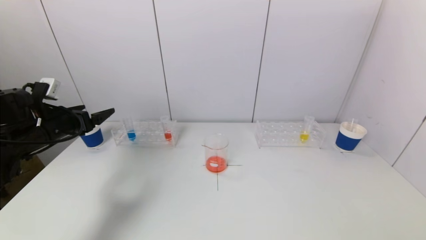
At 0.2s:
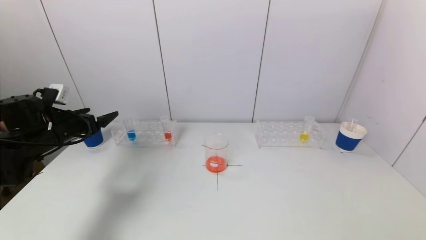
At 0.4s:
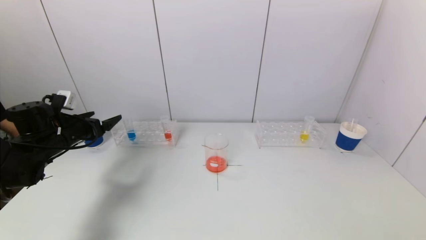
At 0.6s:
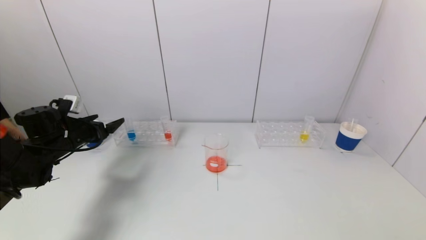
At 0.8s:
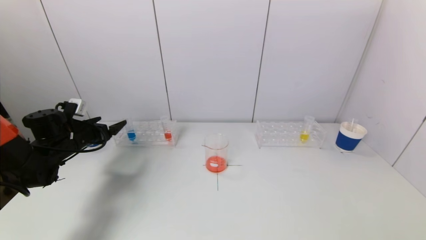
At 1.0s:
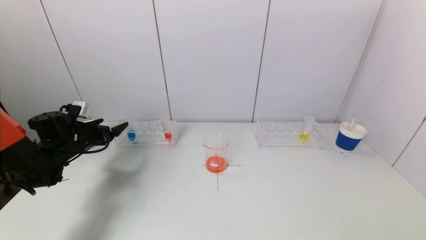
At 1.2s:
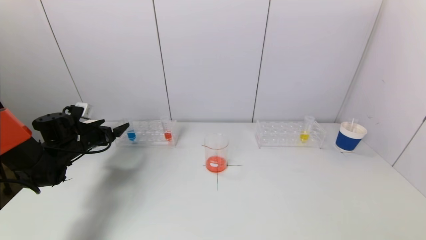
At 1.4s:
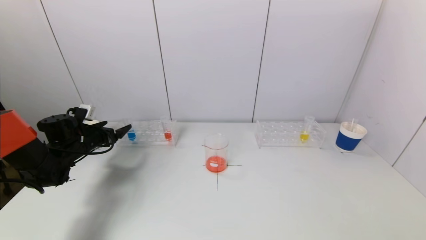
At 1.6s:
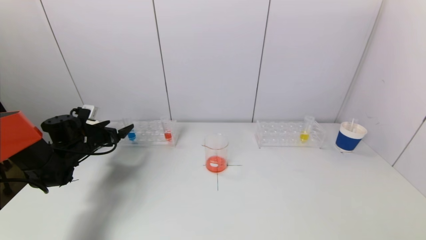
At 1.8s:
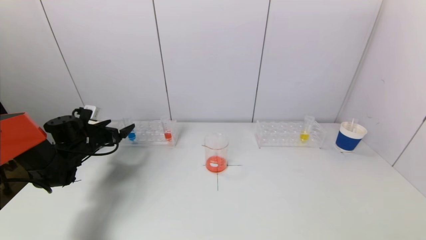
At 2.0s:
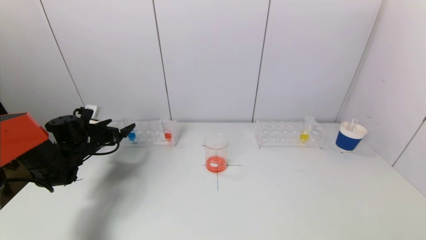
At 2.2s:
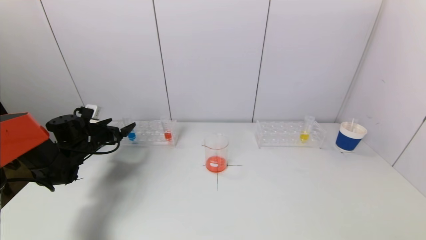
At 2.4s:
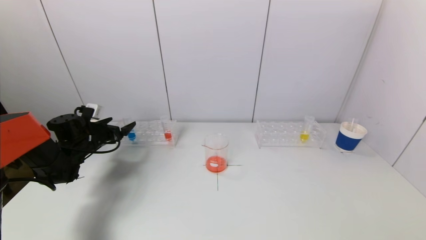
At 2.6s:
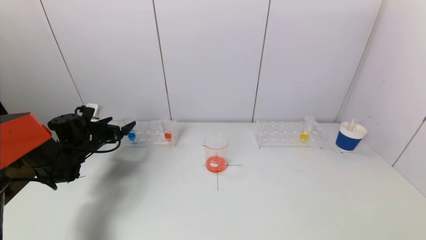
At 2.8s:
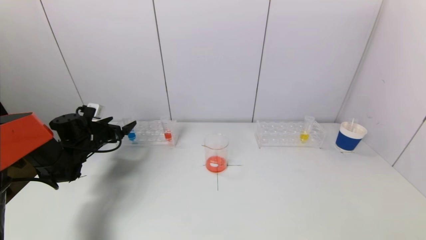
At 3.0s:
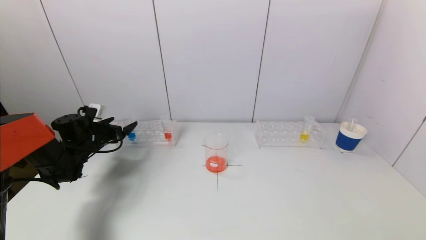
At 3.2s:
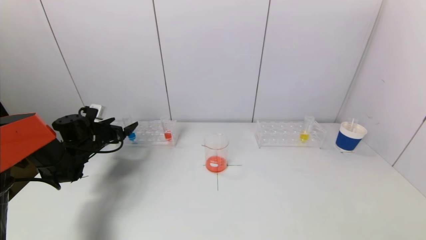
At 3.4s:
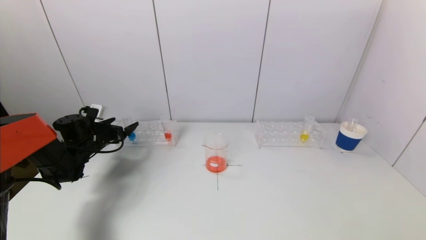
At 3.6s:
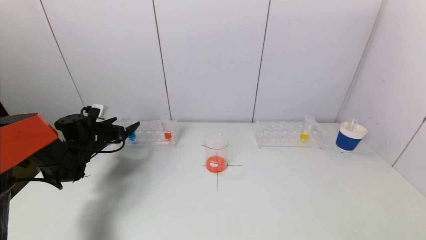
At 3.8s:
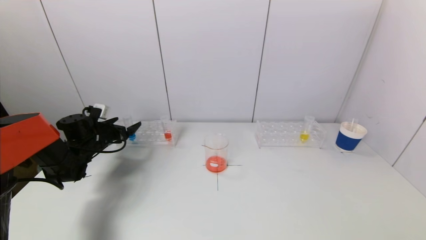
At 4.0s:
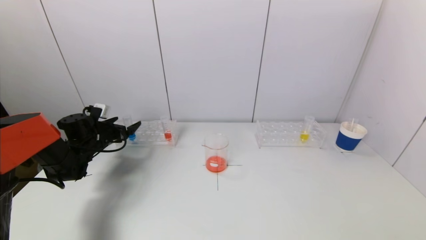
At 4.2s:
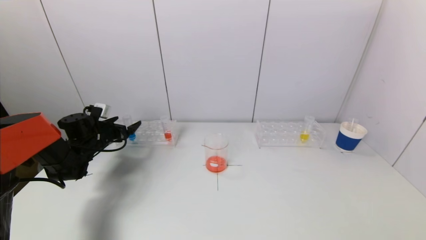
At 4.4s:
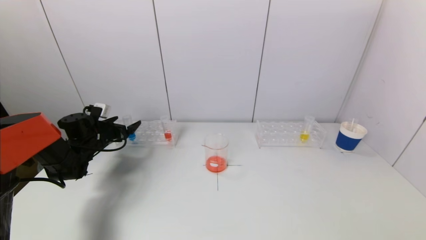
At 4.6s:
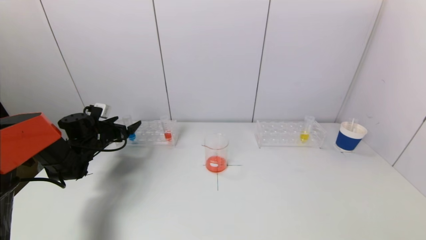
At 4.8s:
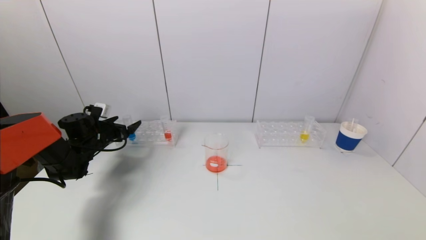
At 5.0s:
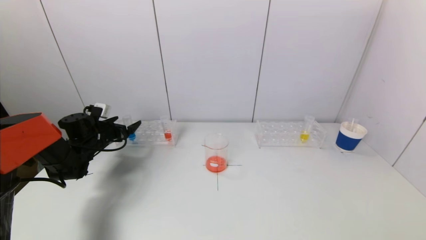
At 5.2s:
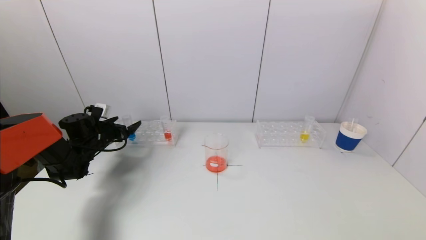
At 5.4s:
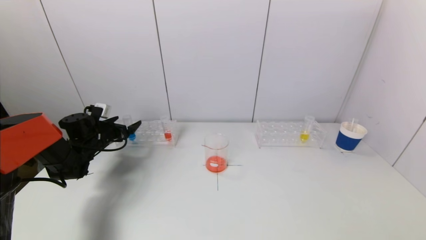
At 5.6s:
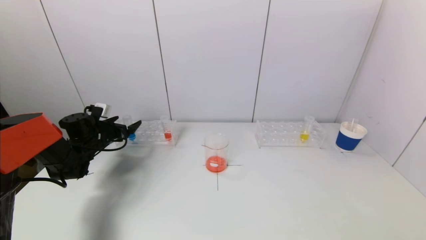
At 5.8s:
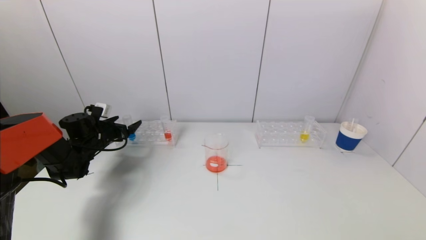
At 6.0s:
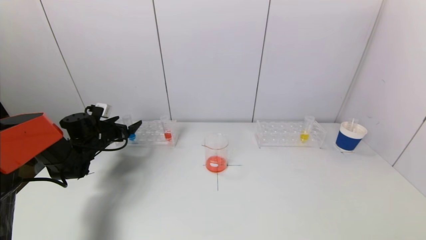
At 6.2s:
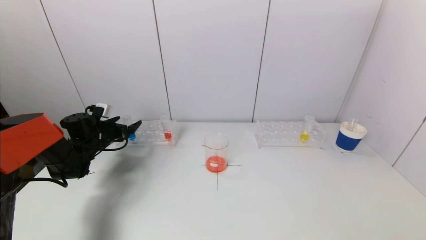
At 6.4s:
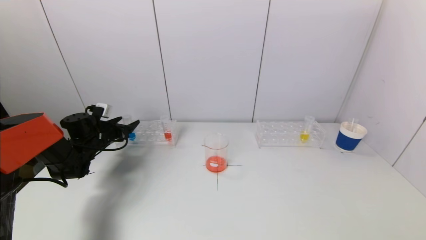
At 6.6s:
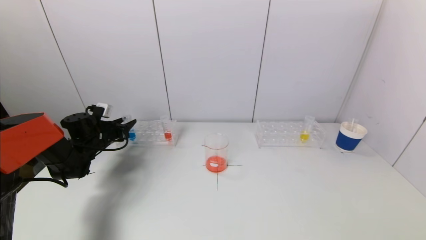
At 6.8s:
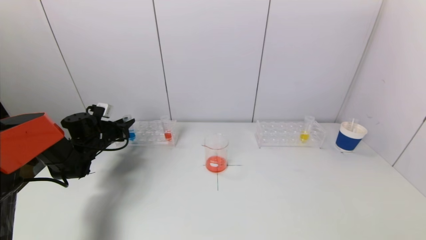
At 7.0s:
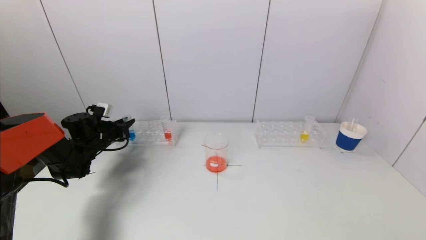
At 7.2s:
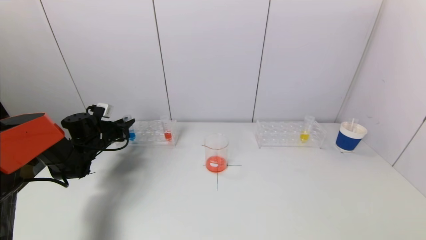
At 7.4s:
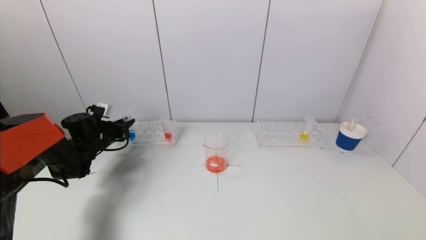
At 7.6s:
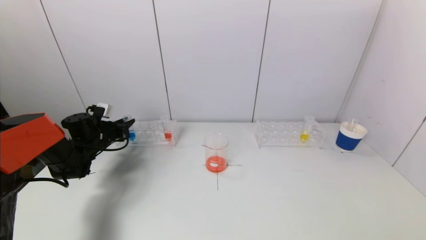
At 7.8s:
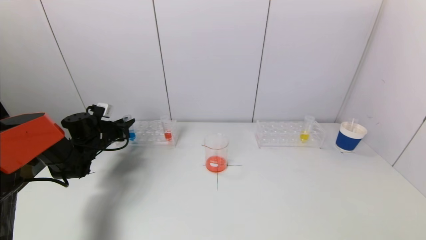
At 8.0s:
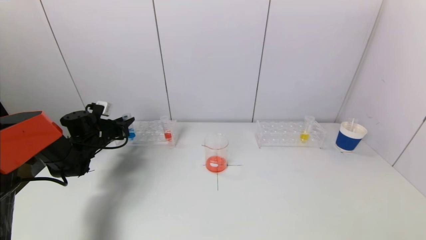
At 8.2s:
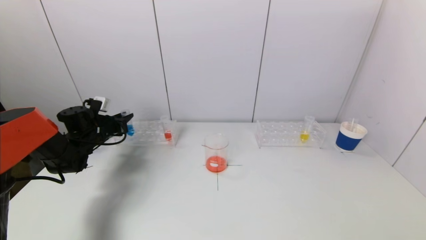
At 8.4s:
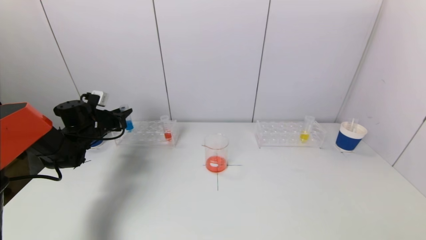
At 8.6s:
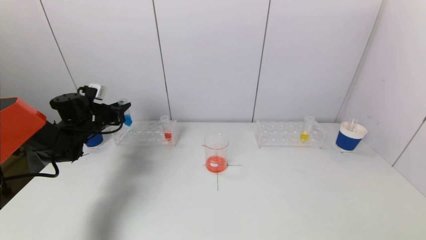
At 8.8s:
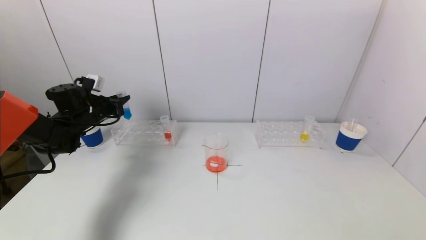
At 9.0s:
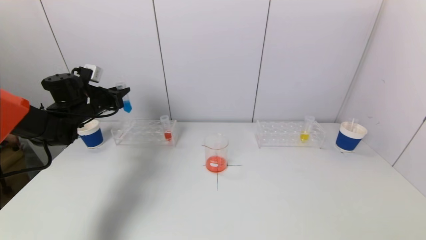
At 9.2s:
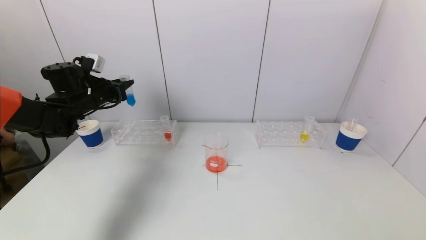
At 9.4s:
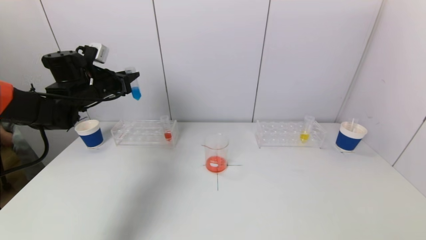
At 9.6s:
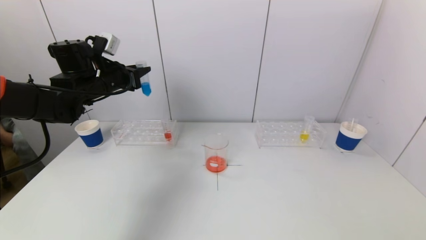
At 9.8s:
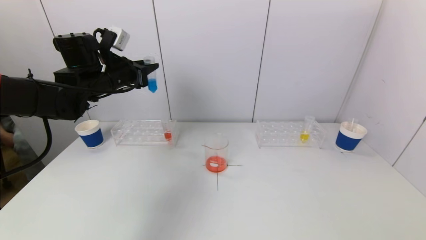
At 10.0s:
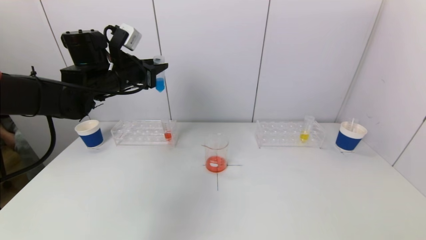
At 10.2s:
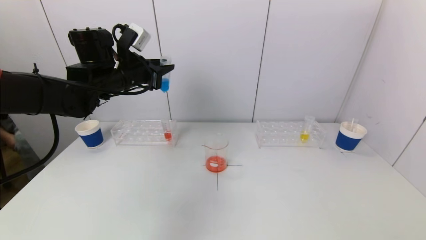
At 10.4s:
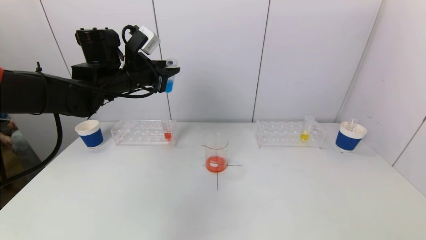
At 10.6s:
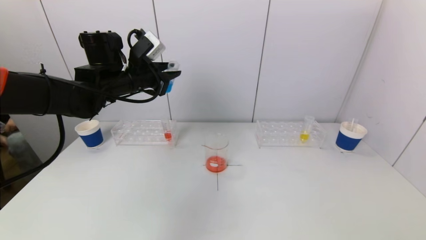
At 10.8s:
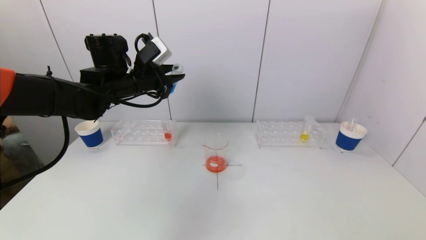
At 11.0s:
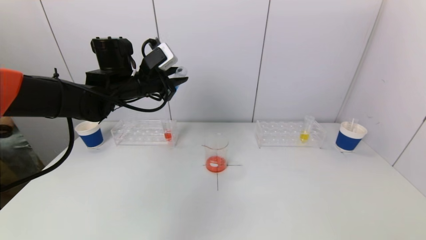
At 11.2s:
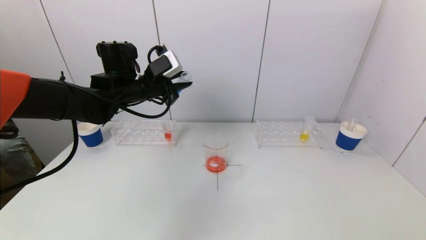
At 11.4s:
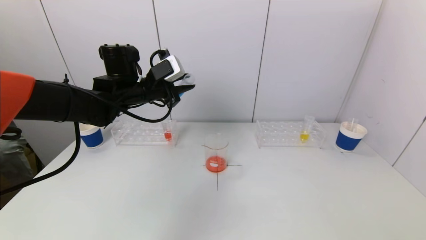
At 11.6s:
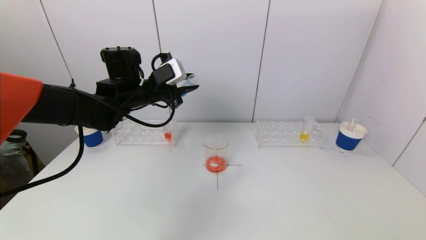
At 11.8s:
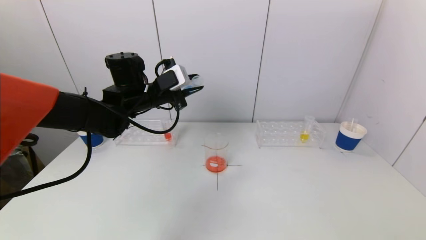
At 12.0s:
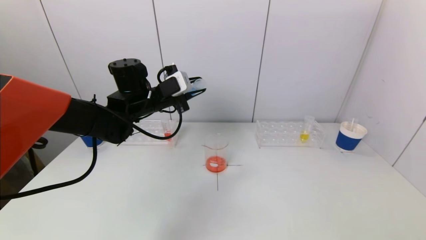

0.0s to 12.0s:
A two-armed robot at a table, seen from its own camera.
Task of the whole recording: pick up a test tube with pigment on left test tube rack and a test tube with pigment on right test tube rack by grippers and pour them into the beaker.
Step, 0.0s to 7.4s: Grasp the blue reagent with the left gripper.
0.0s to 1.6s: The left gripper moves downward and forward, about 15 cm.
1.6s to 3.0s: The grippers stay close to where they were, moving slightly.
3.0s to 4.4s: Both grippers stay about where they are.
4.4s to 6.0s: Neither gripper changes place.
6.0s to 7.6s: The left gripper closes.
7.6s to 9.0s: The left gripper shifts about 10 cm upward.
9.0s to 10.4s: The left gripper shifts about 15 cm to the right and upward.
10.4s to 12.0s: The left gripper heads downward, covering some 5 cm.

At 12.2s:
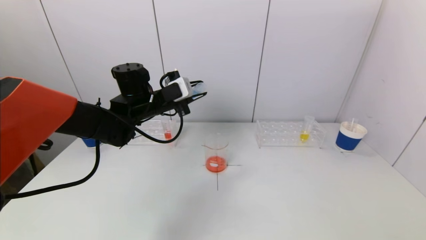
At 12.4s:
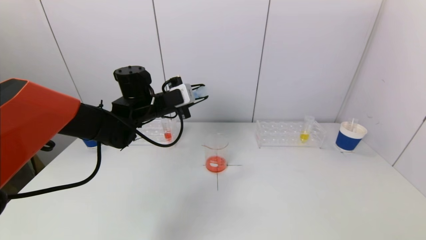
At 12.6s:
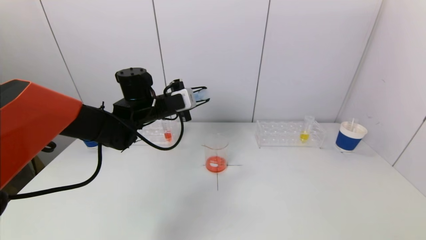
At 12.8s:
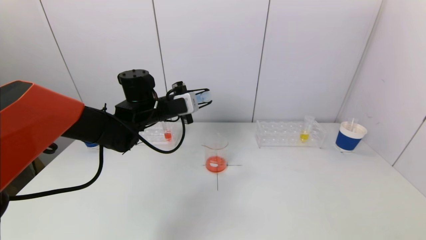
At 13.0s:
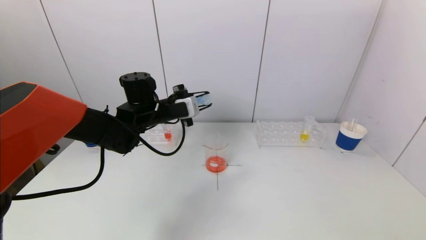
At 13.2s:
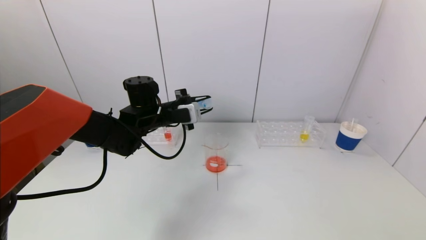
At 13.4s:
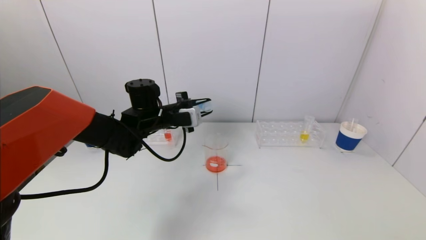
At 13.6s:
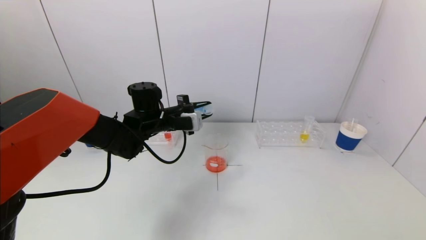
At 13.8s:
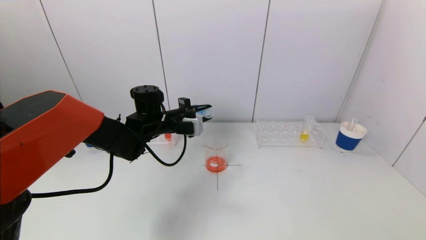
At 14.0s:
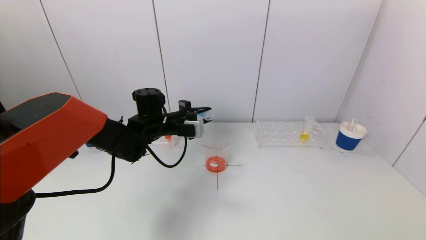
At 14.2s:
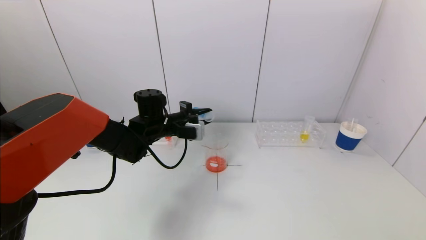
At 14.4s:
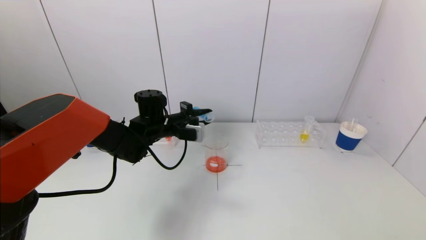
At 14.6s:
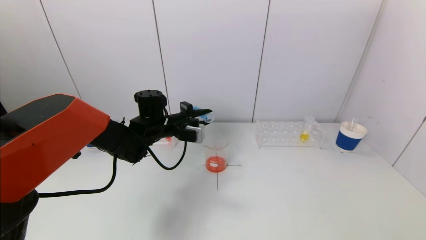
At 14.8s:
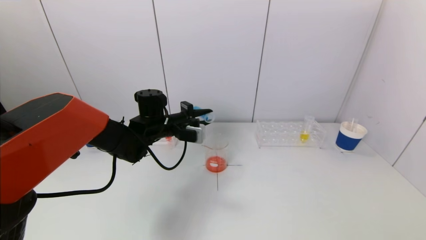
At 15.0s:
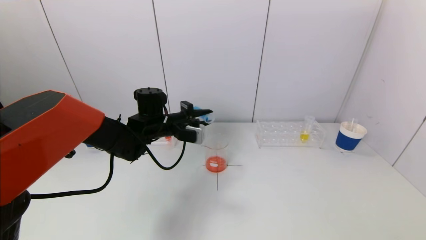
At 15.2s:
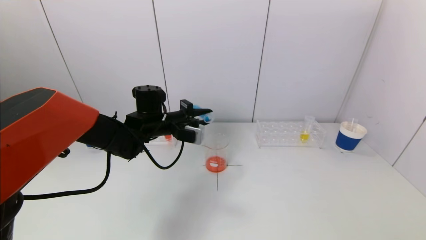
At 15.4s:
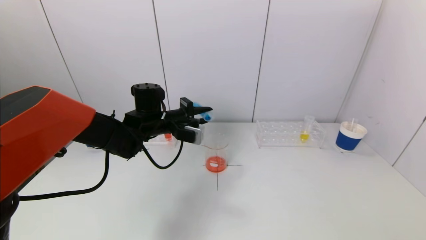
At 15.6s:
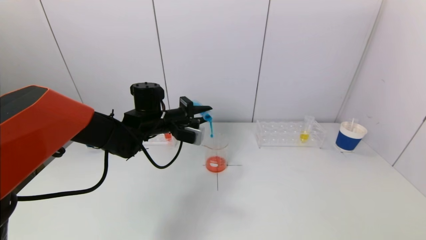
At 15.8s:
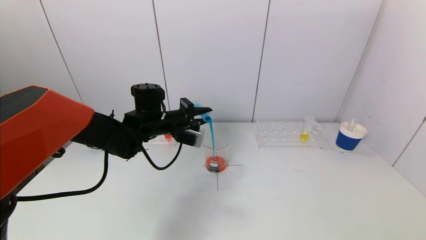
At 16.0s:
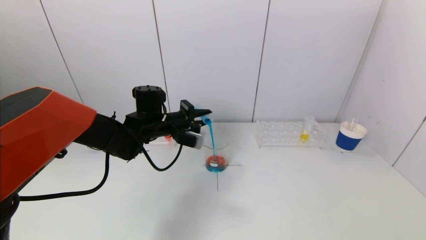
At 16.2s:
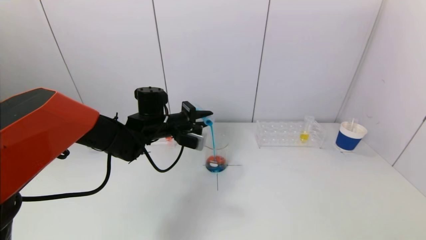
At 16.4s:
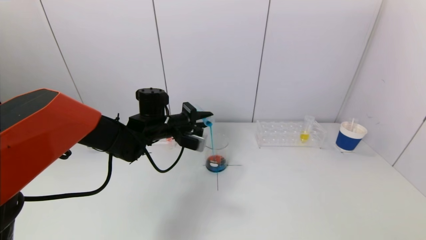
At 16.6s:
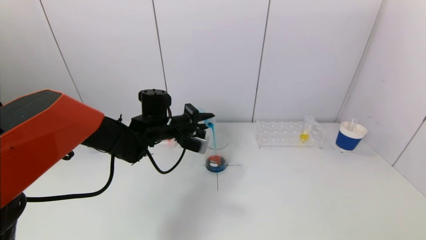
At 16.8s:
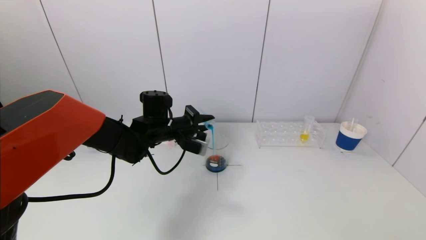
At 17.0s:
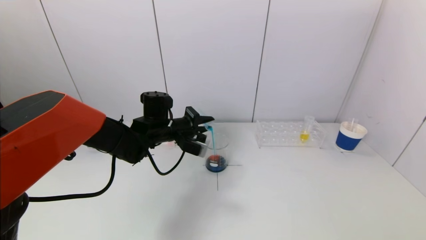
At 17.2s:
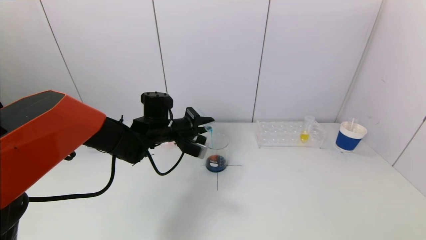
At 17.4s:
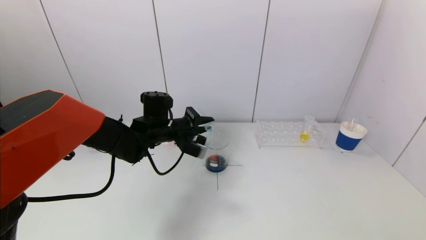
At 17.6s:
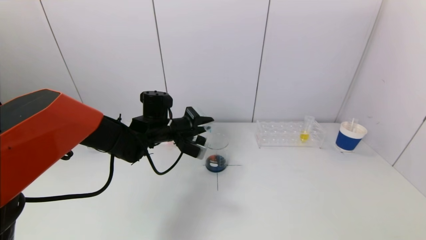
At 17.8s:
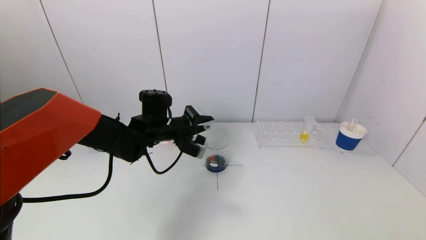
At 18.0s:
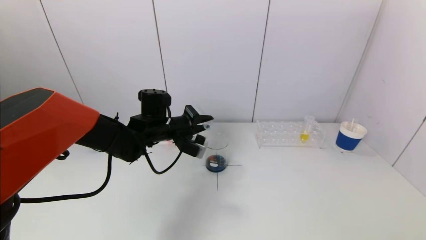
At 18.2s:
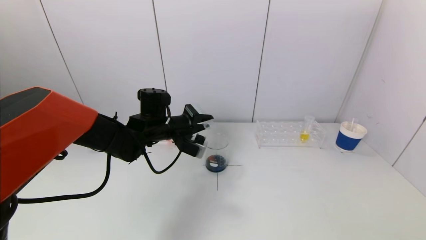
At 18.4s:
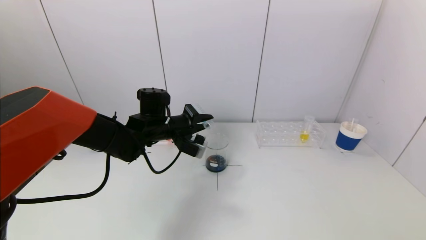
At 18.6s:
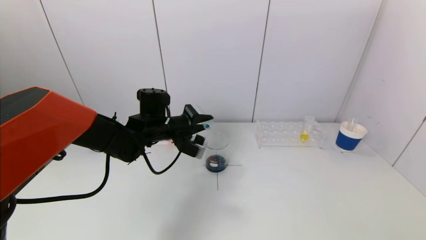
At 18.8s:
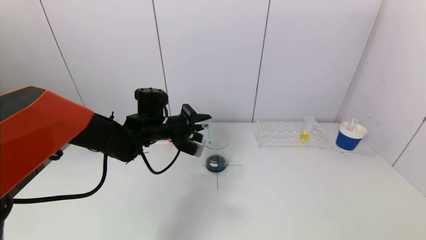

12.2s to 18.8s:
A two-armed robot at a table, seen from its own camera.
Task of the whole recording: pick up a test tube with pigment on left test tube rack and a test tube with pigment on right test tube rack by grippers and pour them into the beaker.
Step, 12.2s to 18.2s: Pour the blue reagent into the graduated cylinder with the left gripper.
12.2s to 13.8s: The left gripper travels downward by roughly 5 cm.
13.8s to 15.4s: The grippers move only a little.
15.4s to 18.8s: The grippers move only a little.
